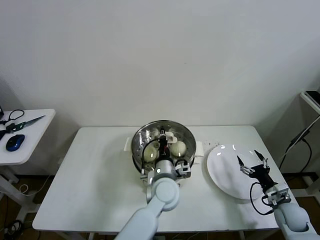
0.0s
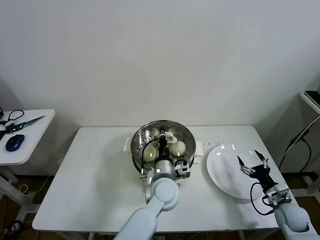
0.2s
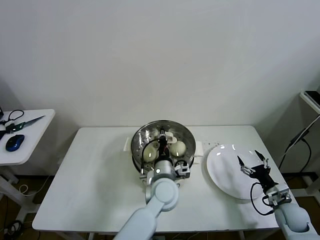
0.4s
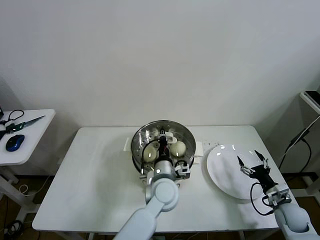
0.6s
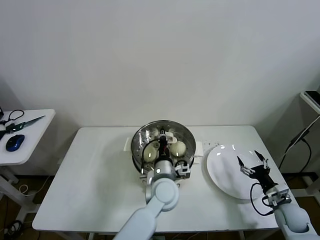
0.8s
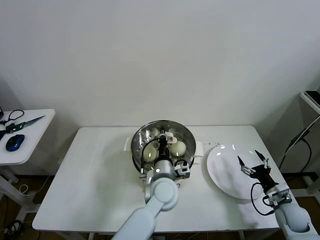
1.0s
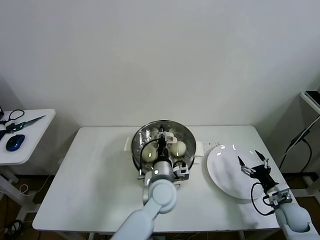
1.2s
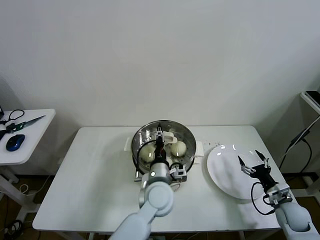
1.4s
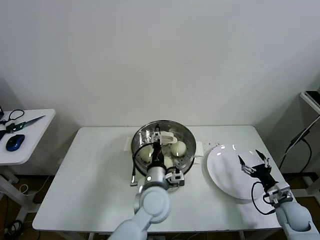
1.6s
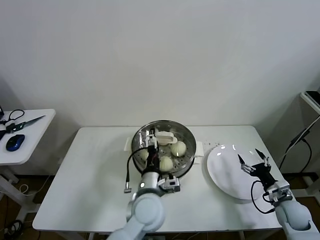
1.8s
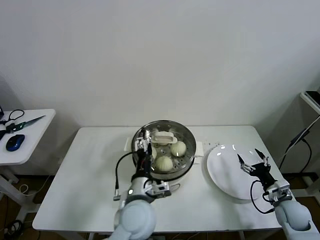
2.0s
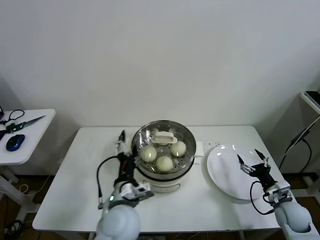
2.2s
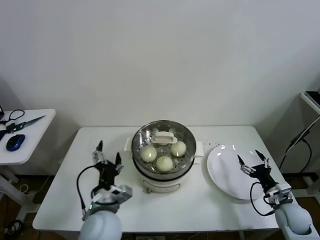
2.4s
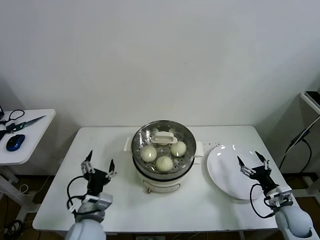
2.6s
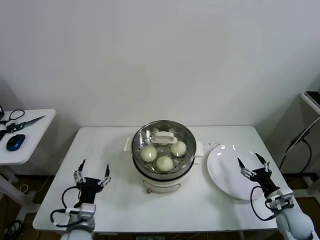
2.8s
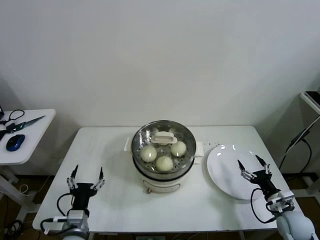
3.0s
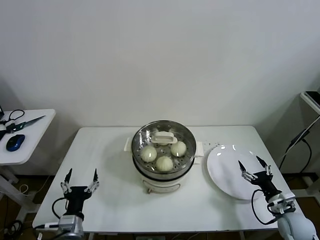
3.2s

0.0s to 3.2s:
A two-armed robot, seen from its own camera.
Task of the whole recording: take steamed baozi put them in steamer then cover it.
0.0s to 1.6s: The left gripper opens.
1.6s to 3.2s: The left gripper moves to the left and backward, roughly 30 cm.

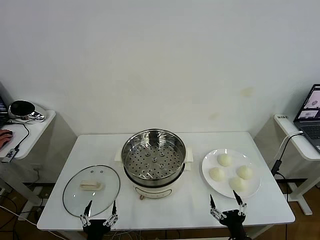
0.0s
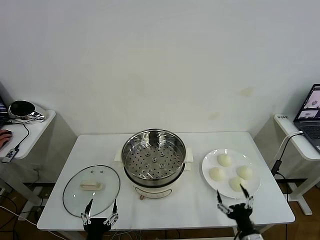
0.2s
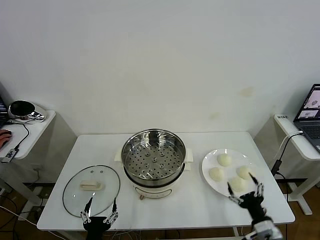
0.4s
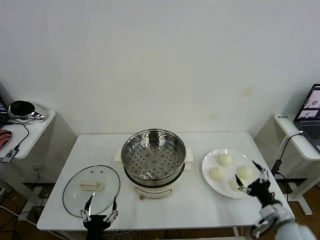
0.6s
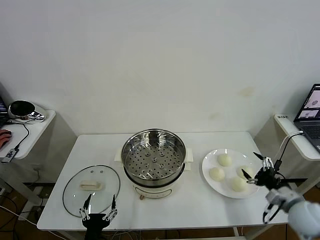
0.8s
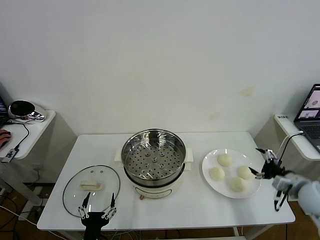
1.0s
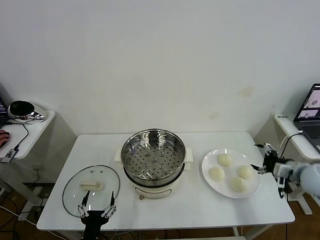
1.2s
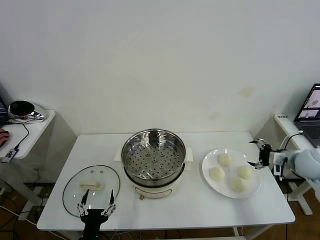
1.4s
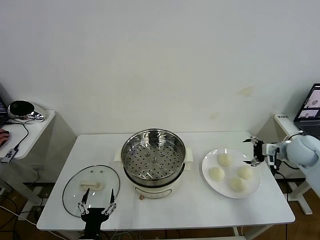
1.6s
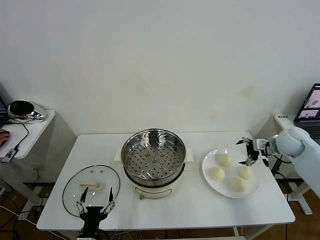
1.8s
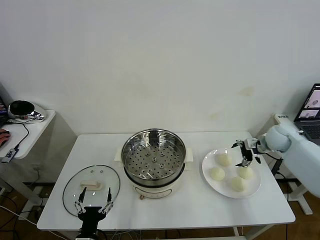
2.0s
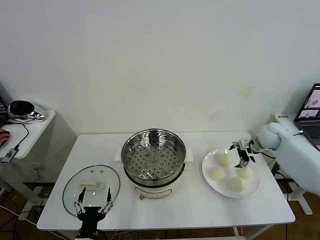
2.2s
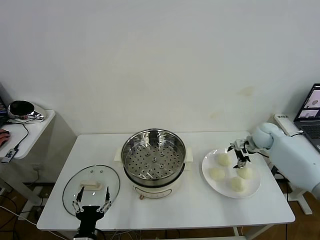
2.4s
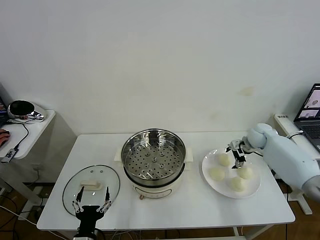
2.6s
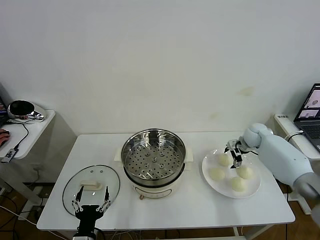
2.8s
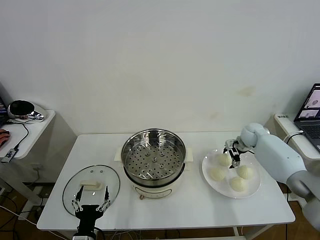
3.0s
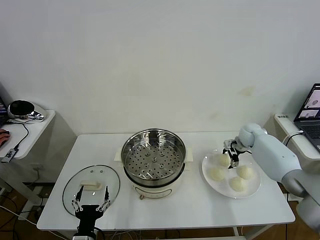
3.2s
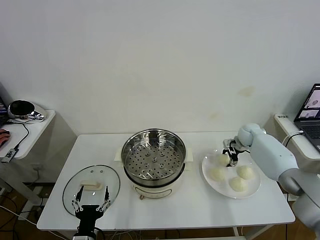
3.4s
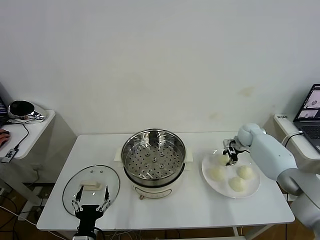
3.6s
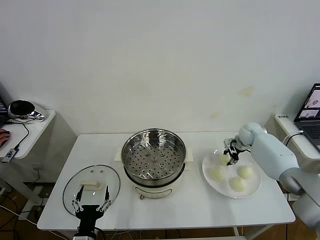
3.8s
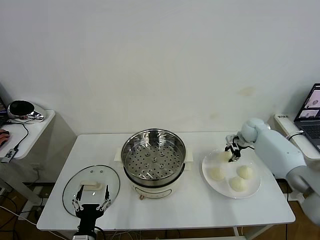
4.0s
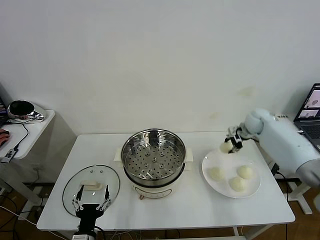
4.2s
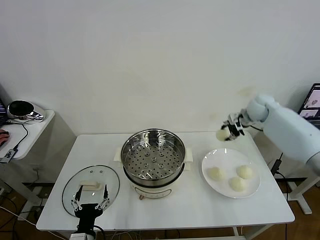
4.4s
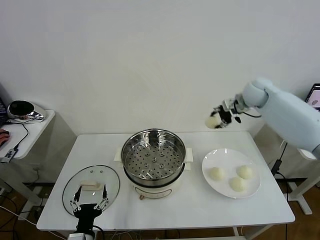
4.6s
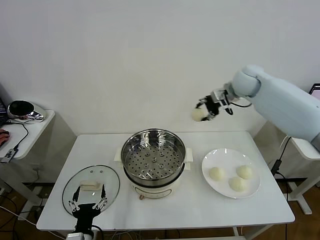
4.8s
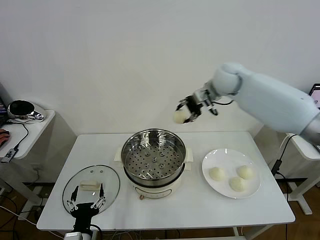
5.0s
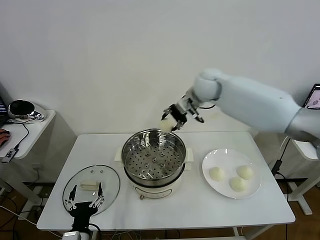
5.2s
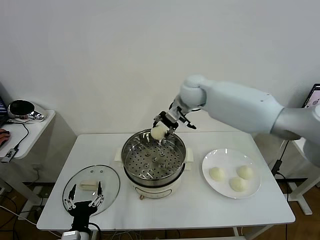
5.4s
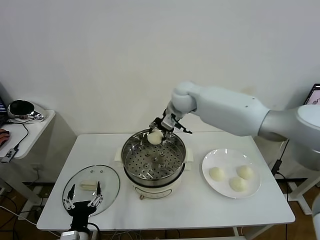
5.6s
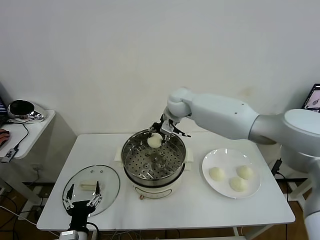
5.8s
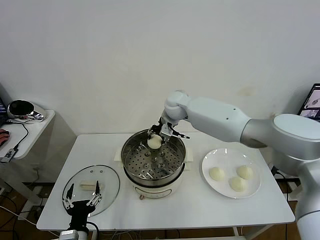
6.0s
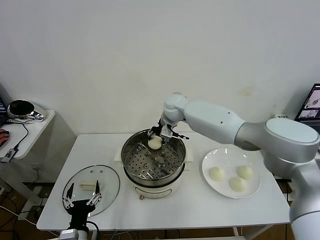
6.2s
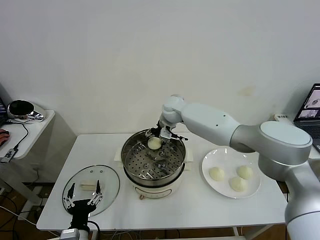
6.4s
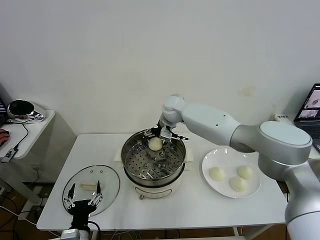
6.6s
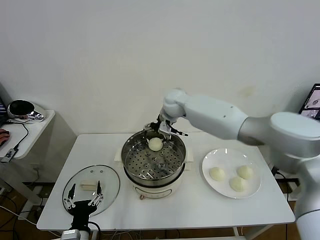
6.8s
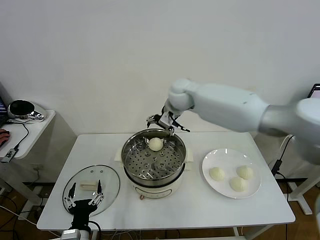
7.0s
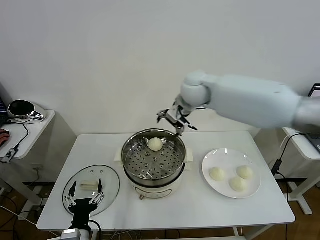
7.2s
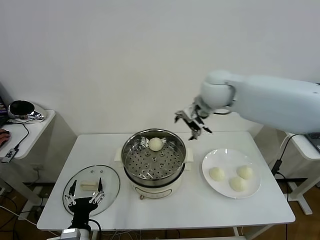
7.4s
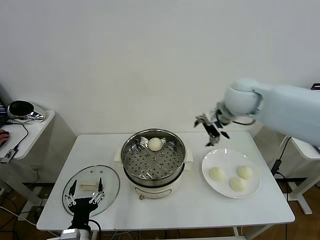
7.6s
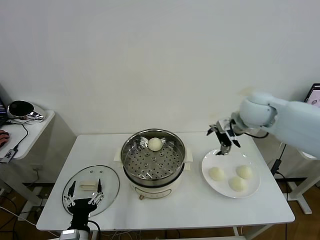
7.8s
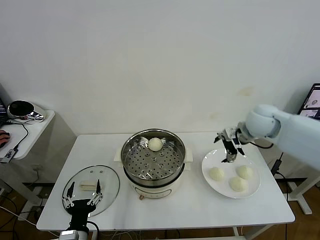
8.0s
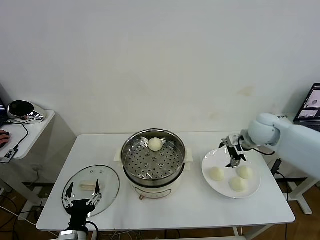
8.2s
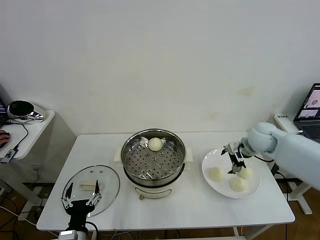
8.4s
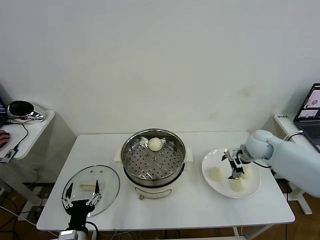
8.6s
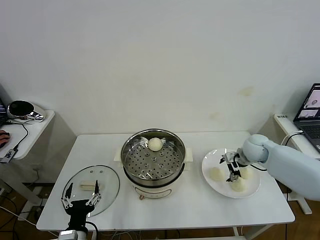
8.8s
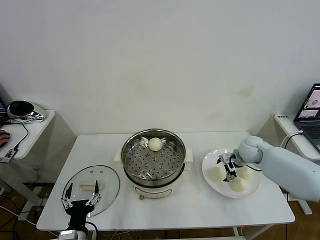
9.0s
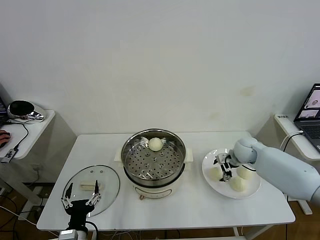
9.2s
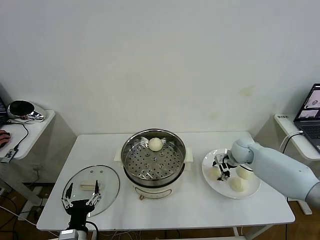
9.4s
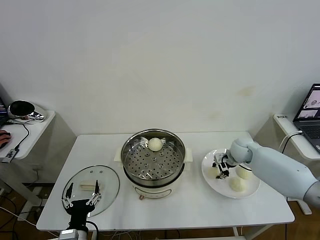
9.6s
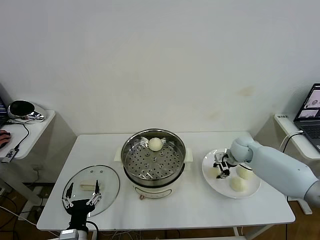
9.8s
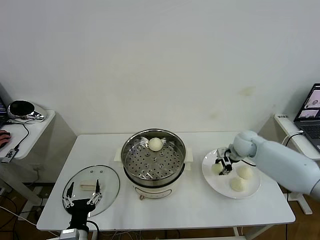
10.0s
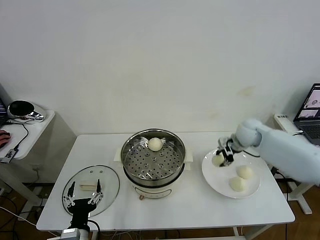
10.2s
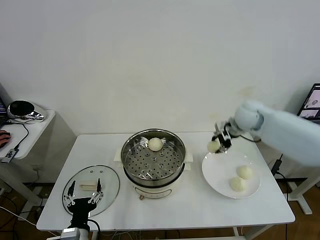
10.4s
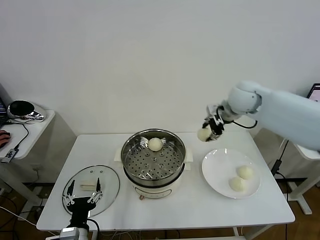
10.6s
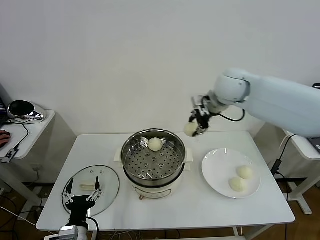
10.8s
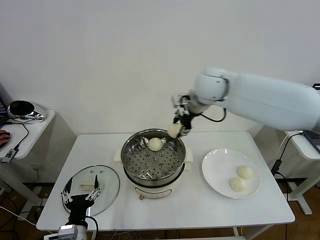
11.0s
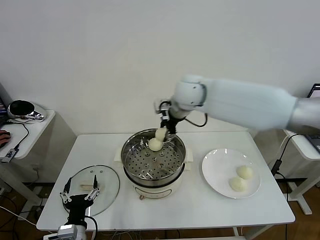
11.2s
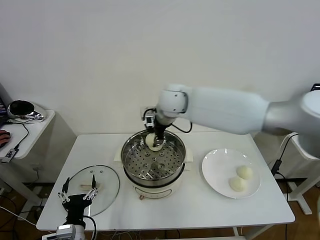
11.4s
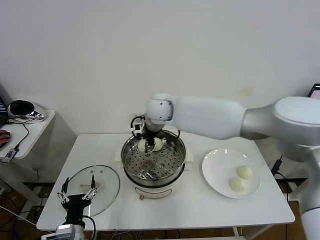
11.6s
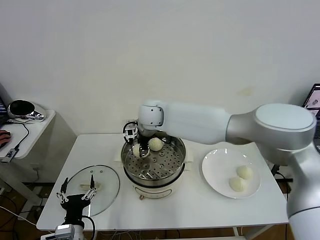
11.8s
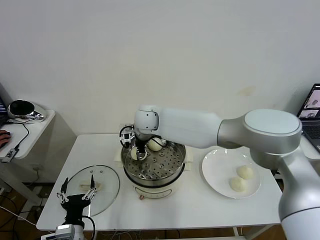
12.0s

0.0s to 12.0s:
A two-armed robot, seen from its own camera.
Task of the whole recording: take steamed baozi put them in steamer then cover it.
Step, 0.0s to 3.4s: Grasp the baozi in the plate with right gripper.
Step, 3.6s to 6.4s: Place the baozi on the steamer with right gripper.
Step, 6.6s to 9.6s: Grasp the baozi in the plate with right gripper.
1.6s to 3.0s: The right gripper shifts approximately 15 cm forward, downward and to the left.
3.0s to 4.4s: The right gripper goes about 20 cm upward, and closes its fingers.
4.4s to 6.0s: The right gripper goes approximately 30 cm to the left.
6.0s to 7.6s: The right gripper moves to the right, backward and upward, approximately 25 cm, and opens.
7.6s to 9.0s: The right gripper shifts some 20 cm downward.
9.0s to 10.4s: The right gripper travels upward by about 20 cm, and closes its fingers.
10.4s to 12.0s: The right gripper goes roughly 30 cm to the left.

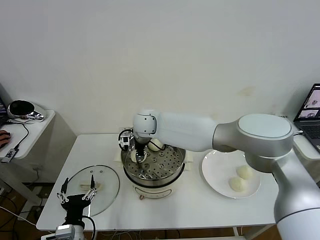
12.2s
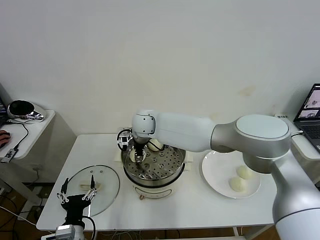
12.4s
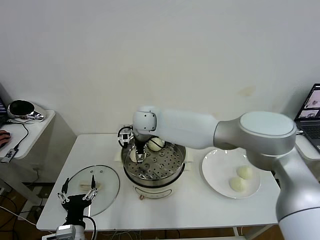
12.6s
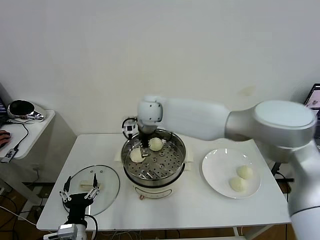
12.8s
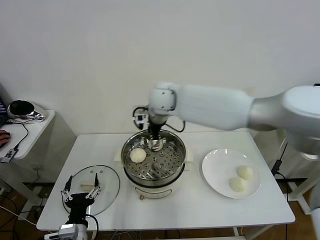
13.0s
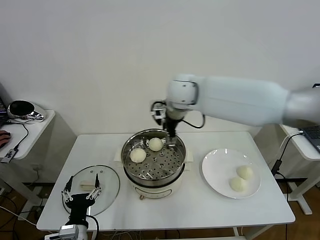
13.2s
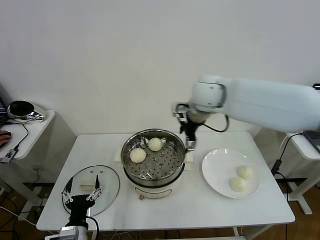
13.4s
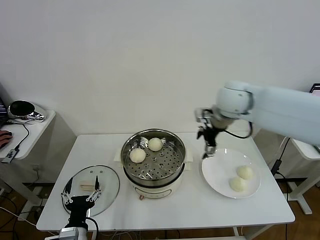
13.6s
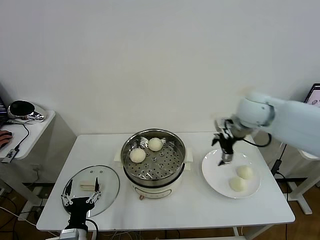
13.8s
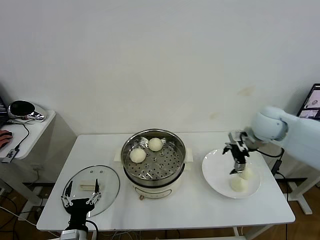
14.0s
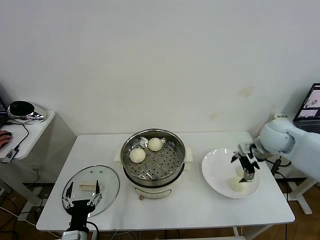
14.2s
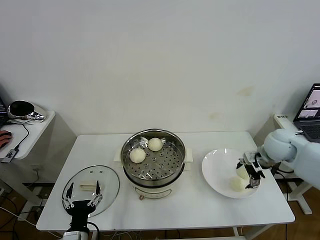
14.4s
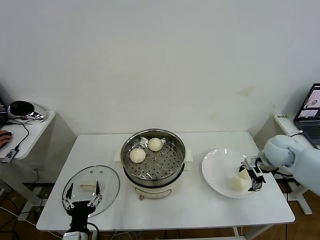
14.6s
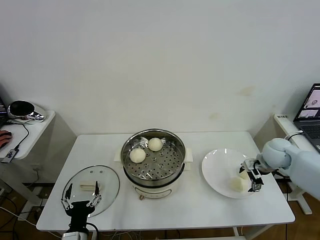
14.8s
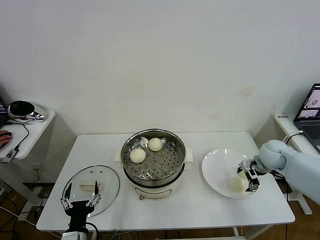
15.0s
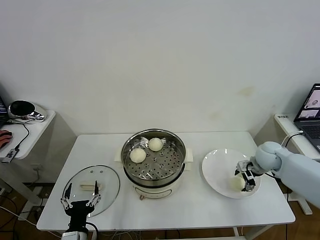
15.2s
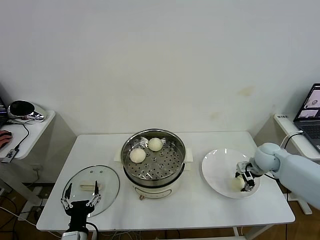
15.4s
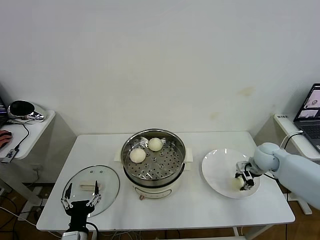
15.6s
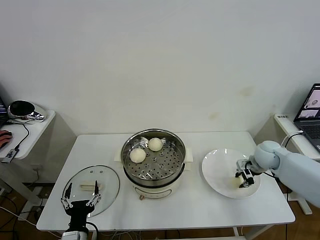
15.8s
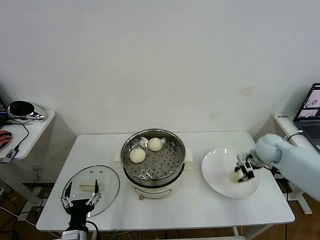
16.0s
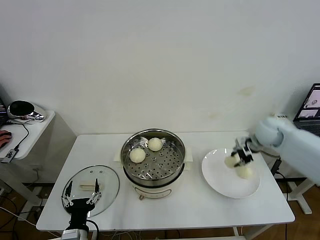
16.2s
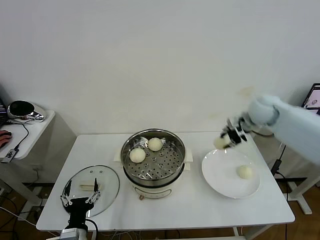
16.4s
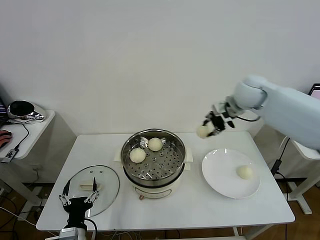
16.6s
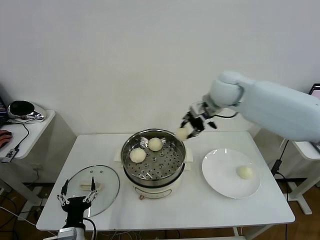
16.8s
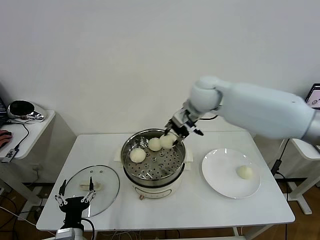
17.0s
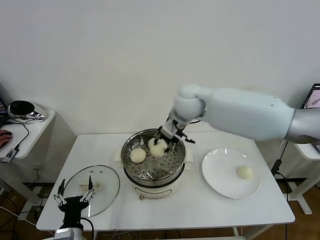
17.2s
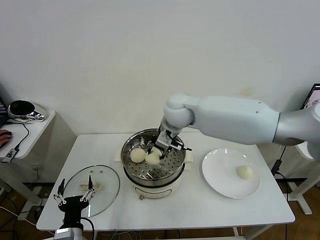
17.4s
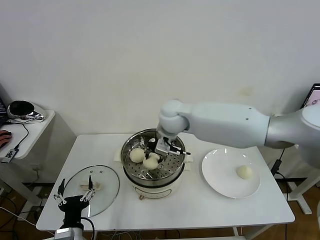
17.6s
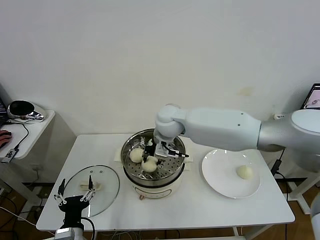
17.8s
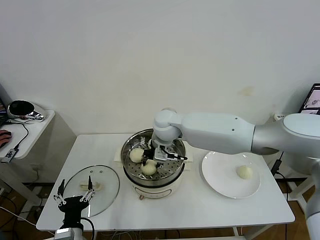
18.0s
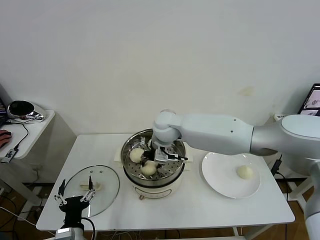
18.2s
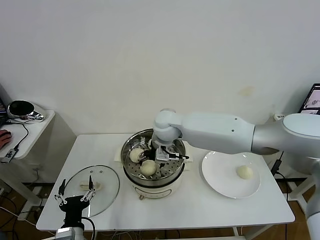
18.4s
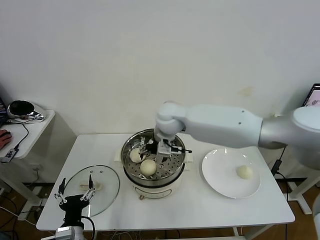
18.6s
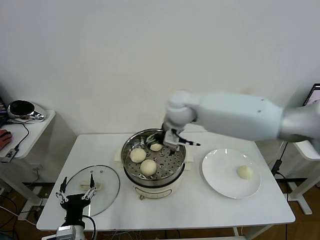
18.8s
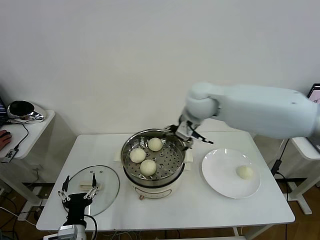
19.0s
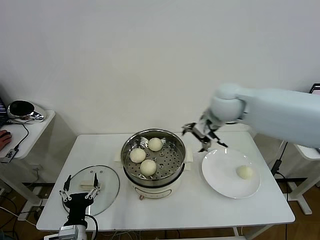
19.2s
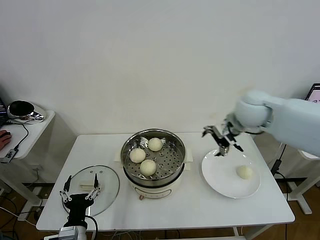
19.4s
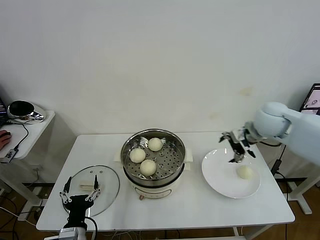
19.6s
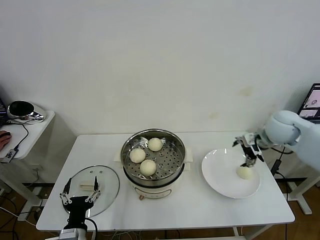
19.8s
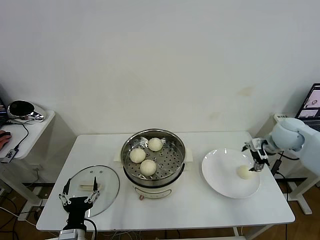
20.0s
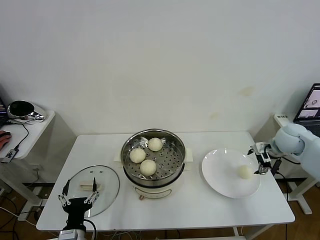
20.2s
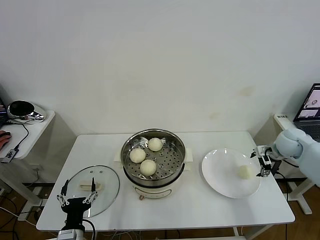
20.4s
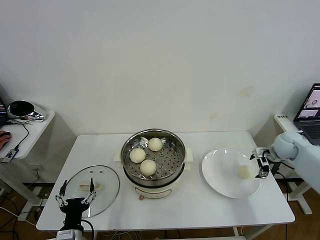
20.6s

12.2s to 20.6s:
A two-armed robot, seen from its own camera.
Task of the whole recording: take steamed baozi put them in steamer then cover it.
Step, 12.8s to 15.6s: Grasp the baozi in the plate with right gripper.
Step, 15.8s to 18.4s: Place the baozi on the steamer with right gripper.
12.2s to 13.6s: The right gripper shifts approximately 30 cm to the right, and opens its fingers.
13.6s to 15.0s: The right gripper shifts about 25 cm downward and to the right.
15.0s to 16.4s: The right gripper shifts roughly 20 cm upward, to the left and forward, and closes up.
16.4s to 17.8s: The right gripper travels to the left by some 30 cm.
17.8s to 19.2s: The right gripper shifts approximately 20 cm to the right and upward, and opens up.
19.2s to 20.6s: The right gripper travels to the right and downward by some 35 cm.
